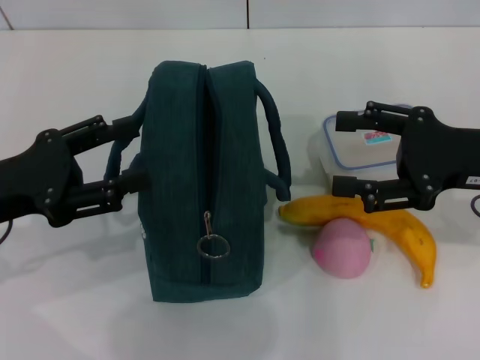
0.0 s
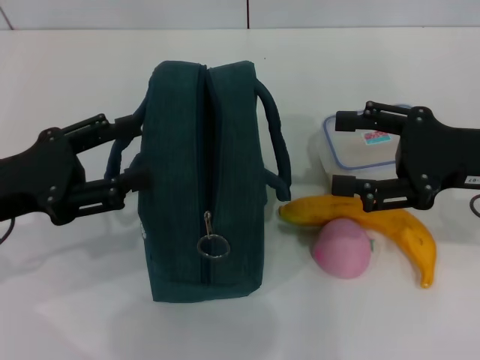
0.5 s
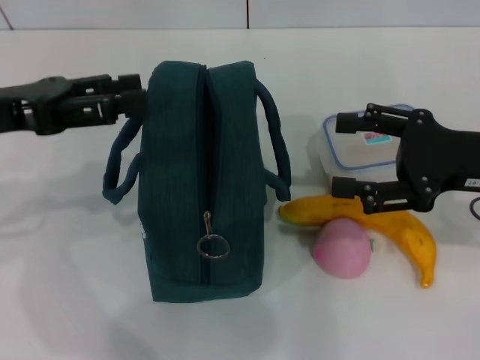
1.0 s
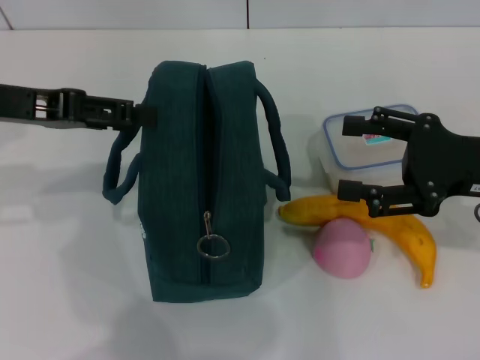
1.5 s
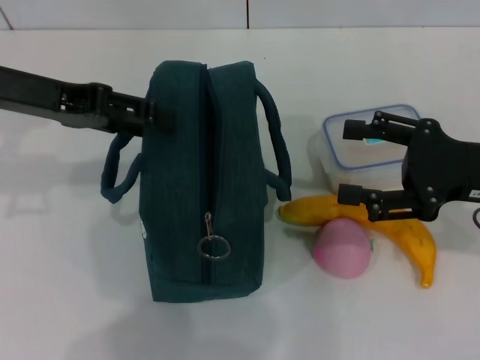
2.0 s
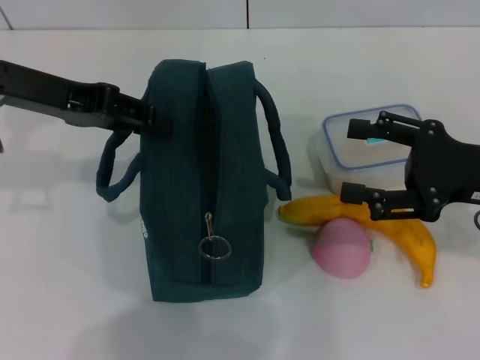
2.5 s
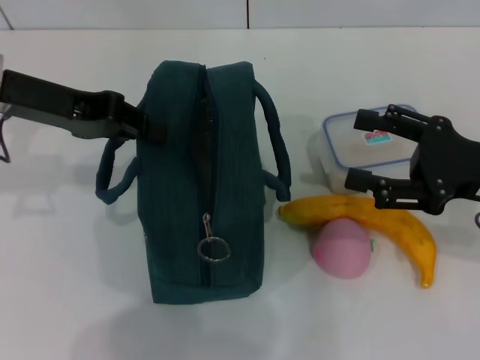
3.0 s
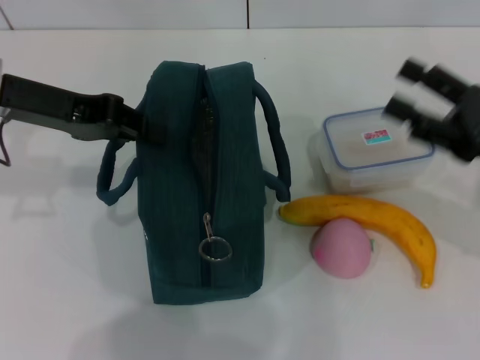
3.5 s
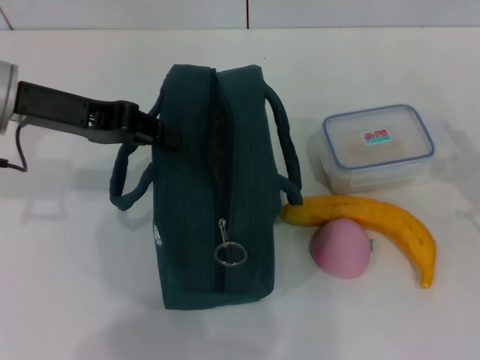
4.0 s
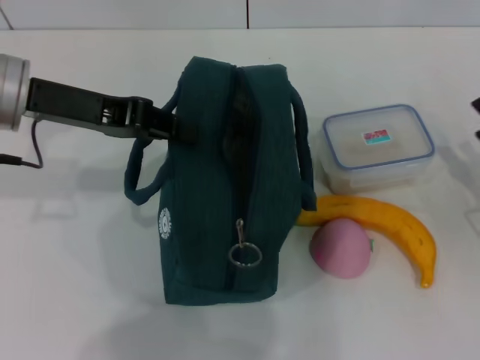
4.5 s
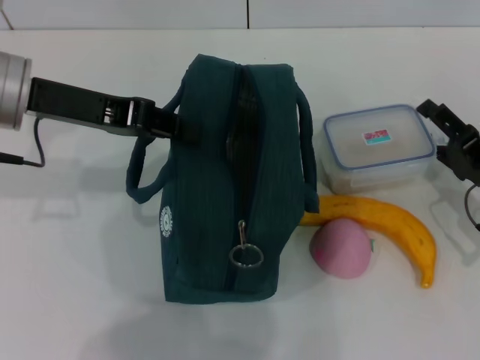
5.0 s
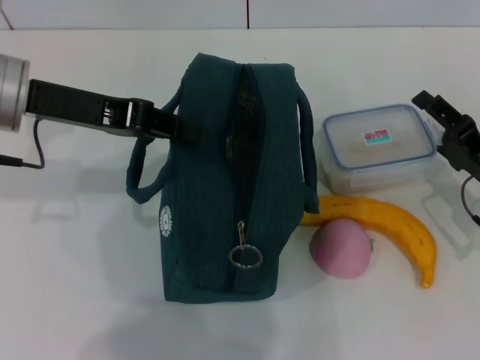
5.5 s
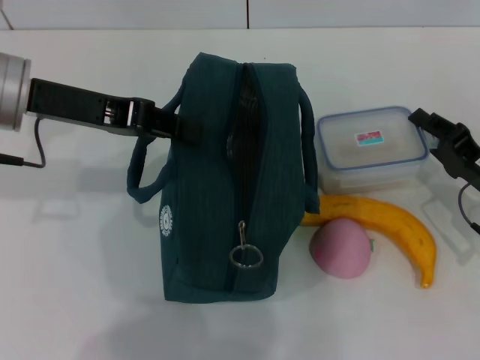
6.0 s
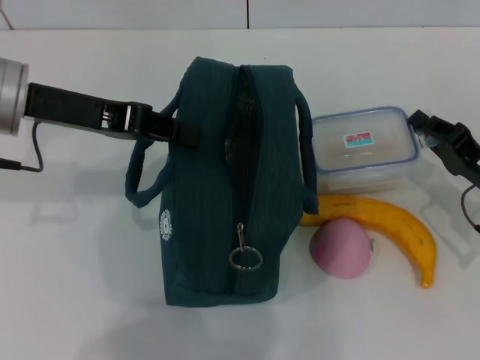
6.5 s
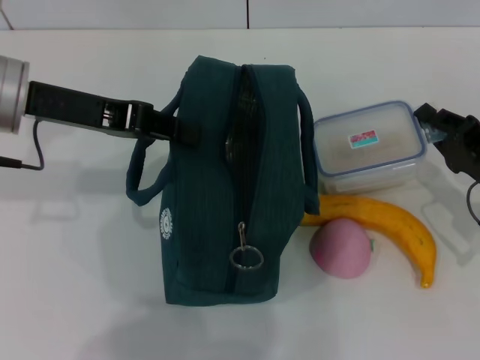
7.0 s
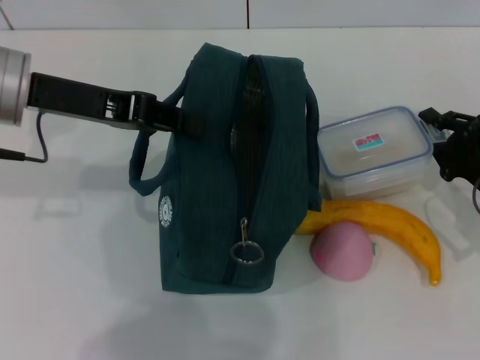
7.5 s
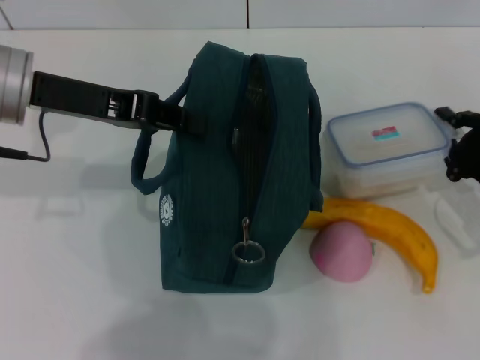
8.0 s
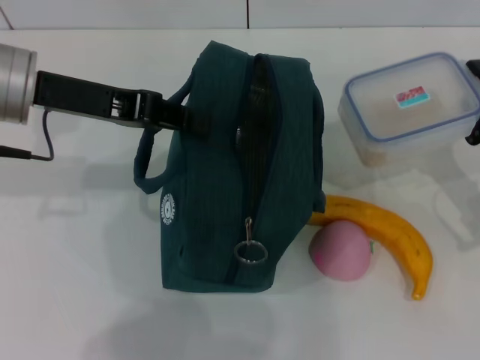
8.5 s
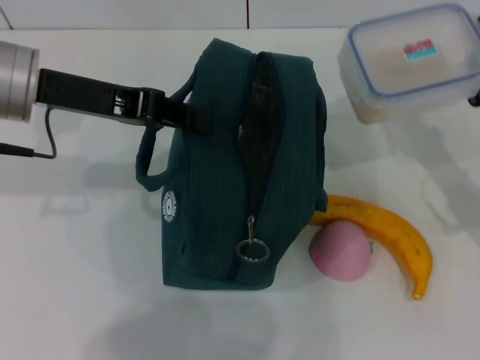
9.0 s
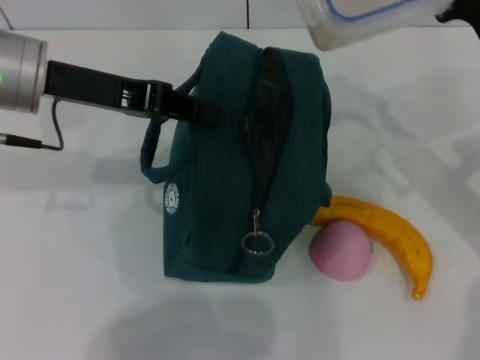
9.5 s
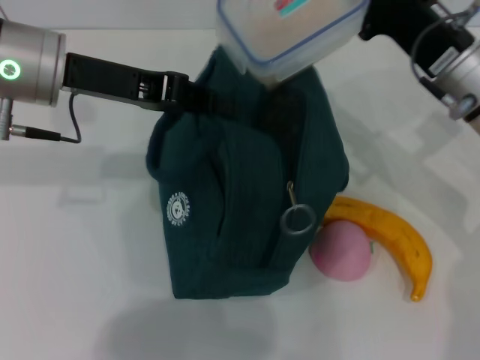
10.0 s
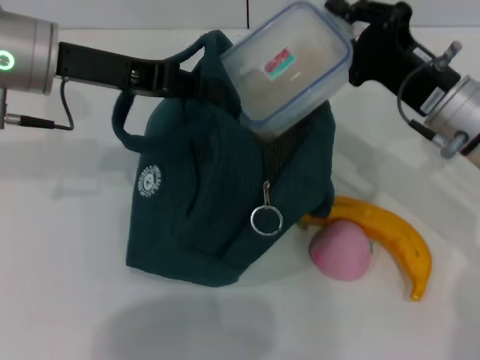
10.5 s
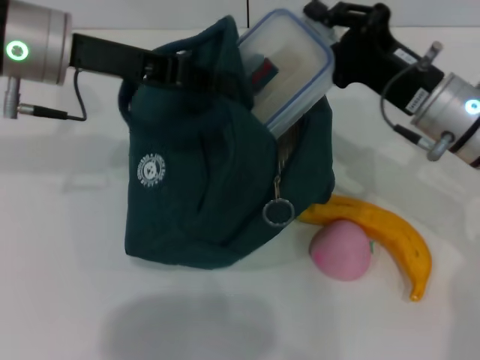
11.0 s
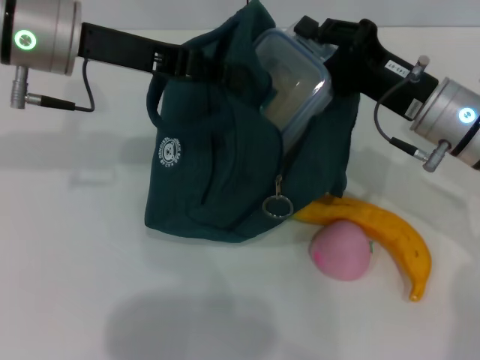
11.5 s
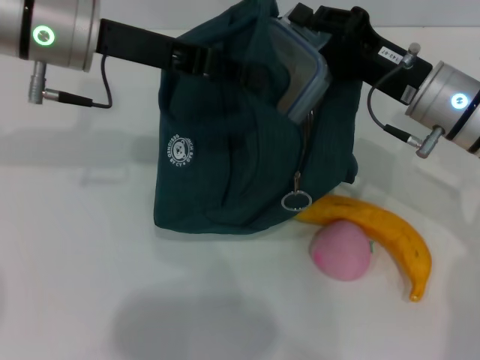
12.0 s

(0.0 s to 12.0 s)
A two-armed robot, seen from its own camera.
Step, 0.0 s - 2.5 s: Hold the lunch bag with your left hand.
Step, 3.0 s - 6.0 s: Pick up the lunch box with your right hand.
0.0 s - 2.0 s: The left gripper shifts approximately 15 cm forward and upward.
2.0 s - 4.0 s: The left gripper closes up. Meanwhile the right gripper goes roughly 10 cm downward and to the right.
4.0 s - 6.0 s: The right gripper changes place by approximately 5 cm, and closes its fingers.
6.0 s - 8.0 s: The right gripper closes up.
8.0 s - 10.0 s: The right gripper moves to the left, upward and forward, about 15 cm.

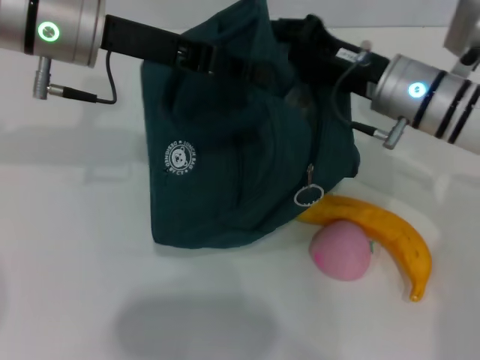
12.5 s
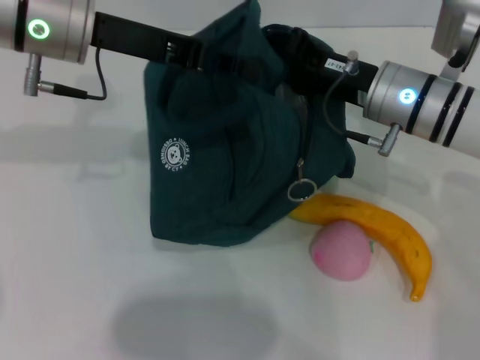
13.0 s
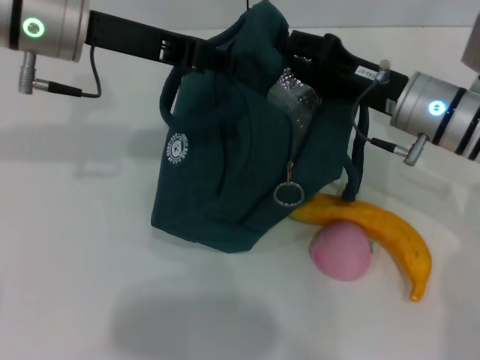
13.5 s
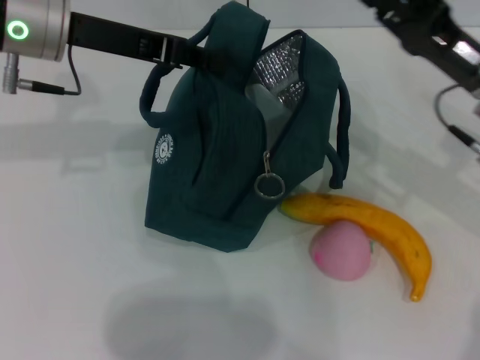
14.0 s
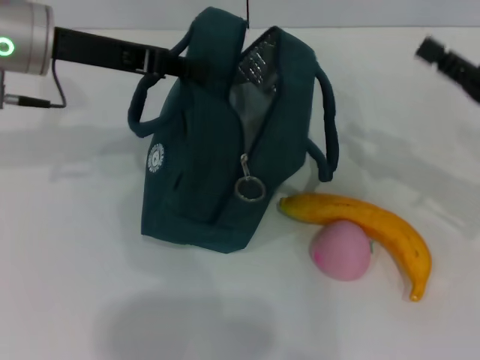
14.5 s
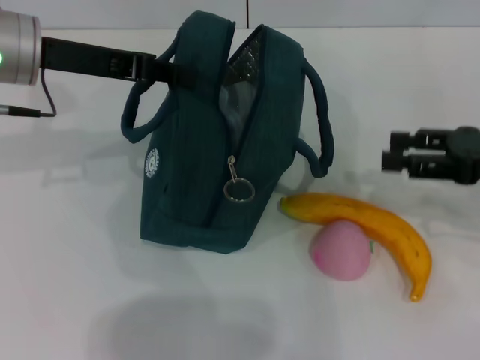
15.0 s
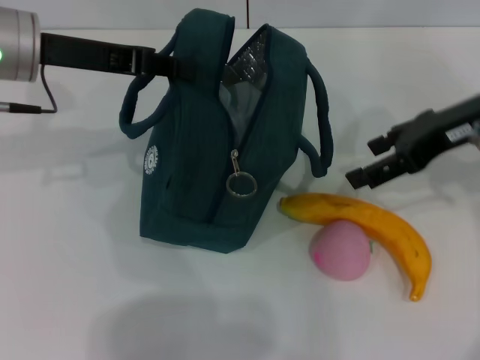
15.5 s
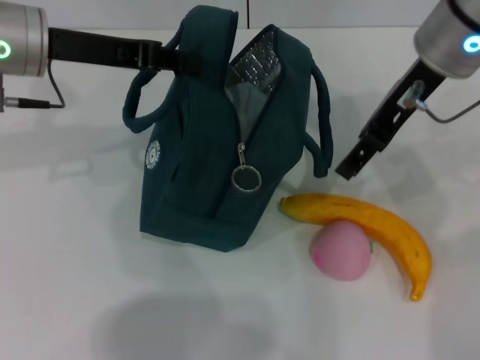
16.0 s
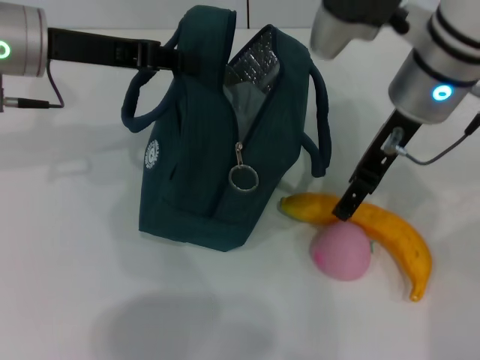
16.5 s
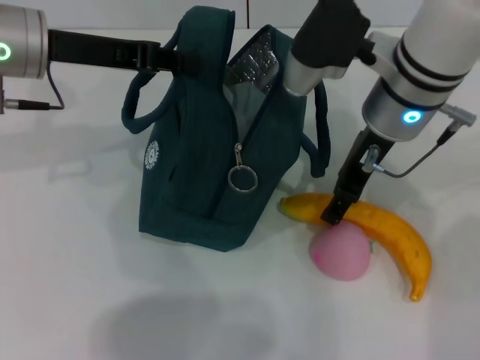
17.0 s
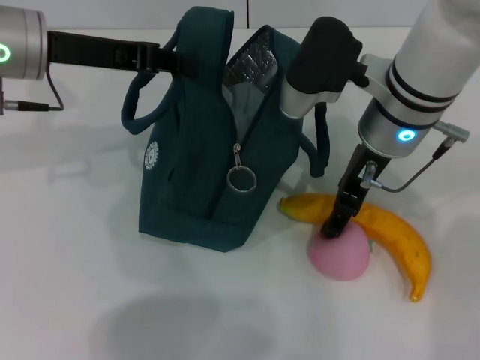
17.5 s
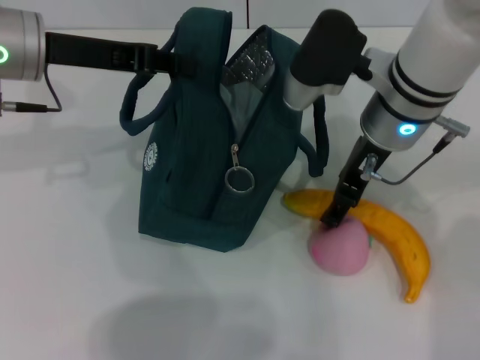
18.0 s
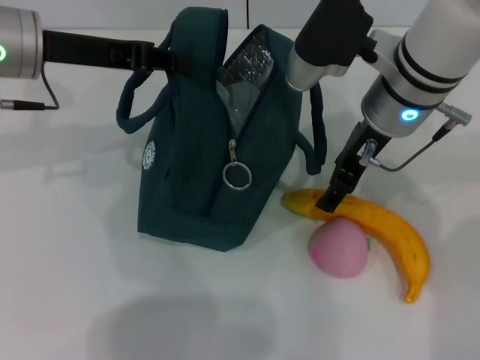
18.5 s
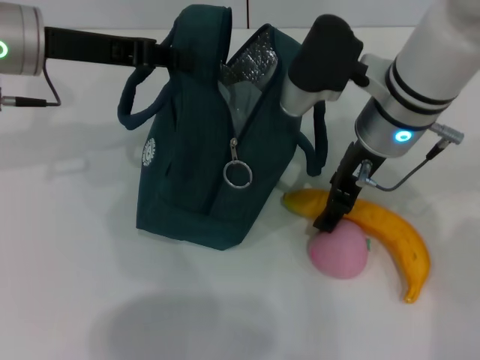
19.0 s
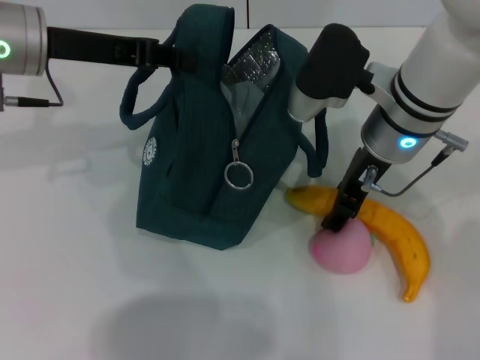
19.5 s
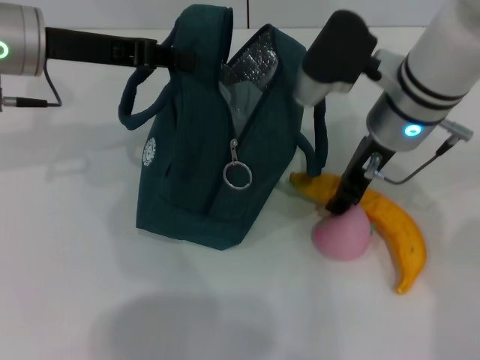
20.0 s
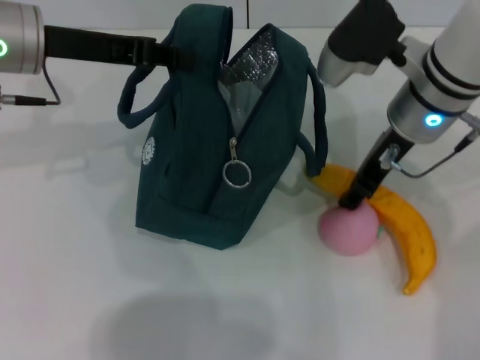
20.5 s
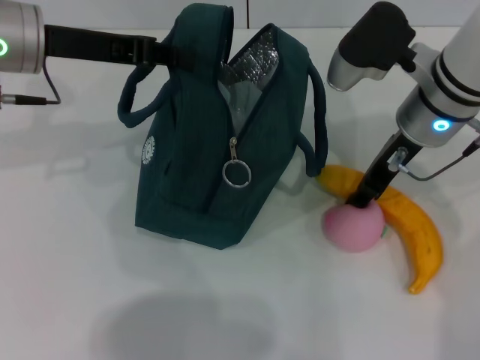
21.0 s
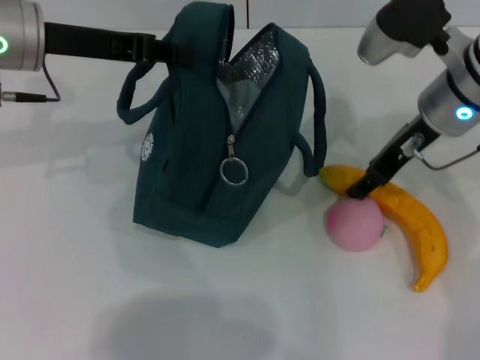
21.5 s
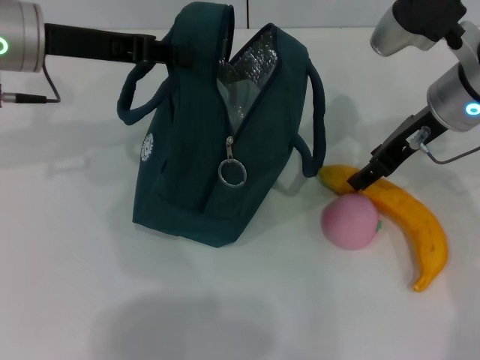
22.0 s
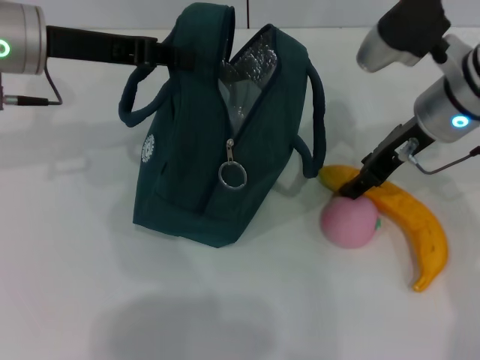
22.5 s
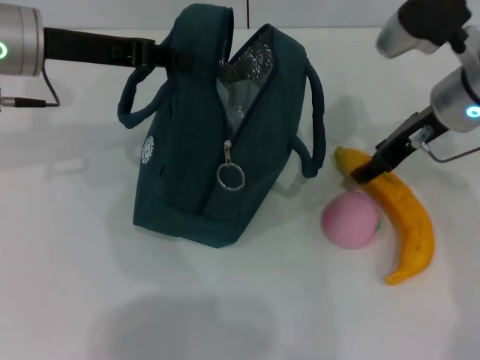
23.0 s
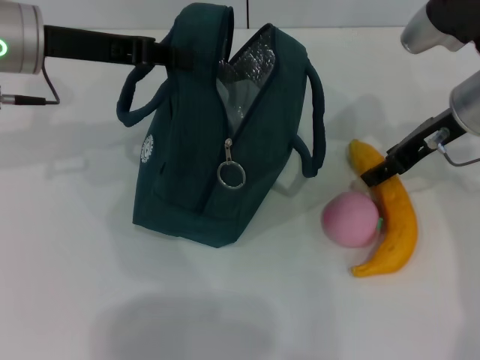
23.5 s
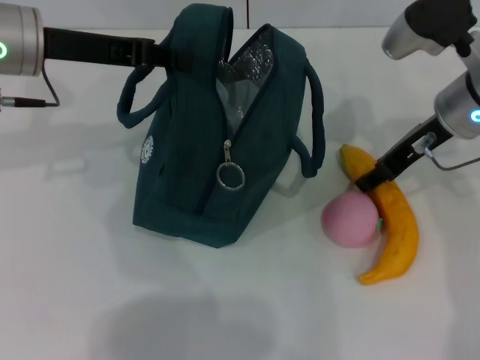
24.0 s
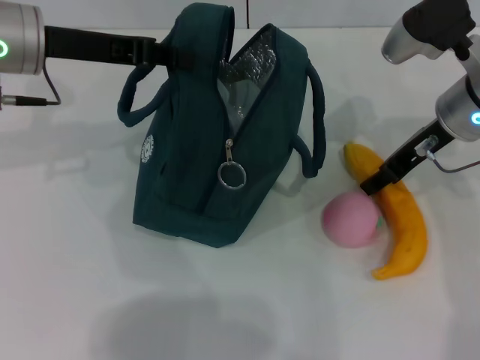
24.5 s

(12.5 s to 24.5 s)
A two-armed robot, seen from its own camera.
12.5 s - 14.5 s: The left gripper ends up roughly 5 cm from where it was. Meanwhile the right gripper heads to the right and backward, covering roughly 15 cm.
14.5 s - 16.5 s: The right gripper heads to the left, upward and forward, covering approximately 20 cm, and opens its fingers.
16.5 s - 18.5 s: The grippers make only small movements.
18.5 s - 20.5 s: The right gripper closes.
20.5 s - 22.5 s: The grippers make only small movements.
22.5 s - 24.5 s: The grippers make only small movements.

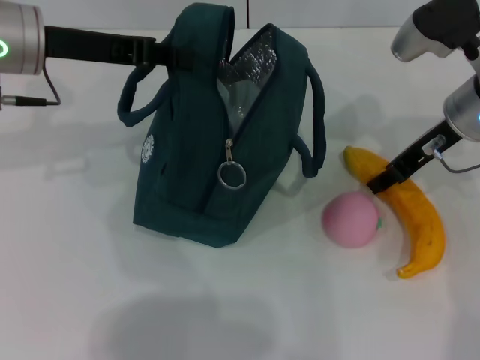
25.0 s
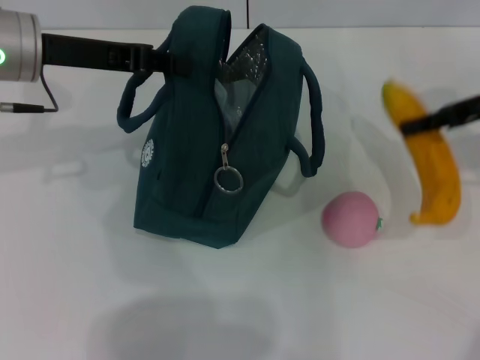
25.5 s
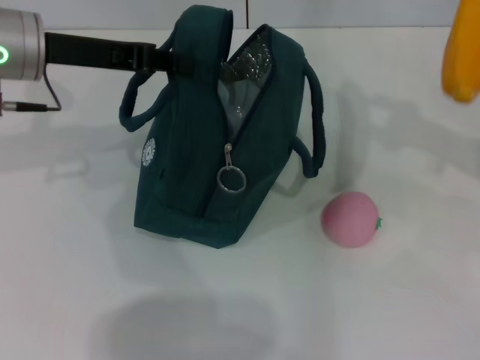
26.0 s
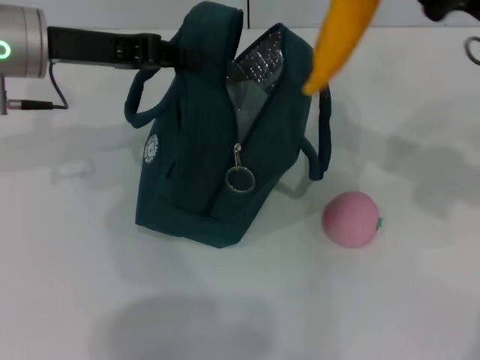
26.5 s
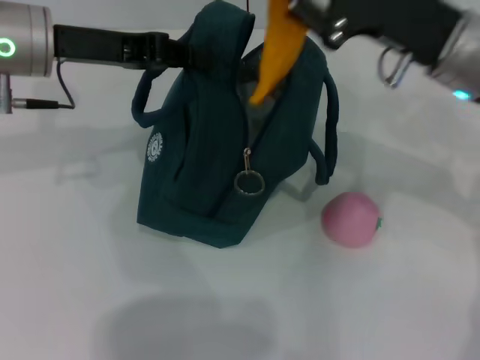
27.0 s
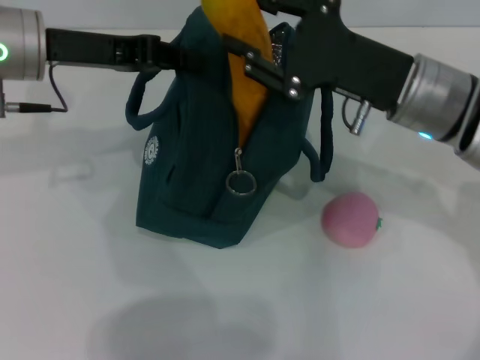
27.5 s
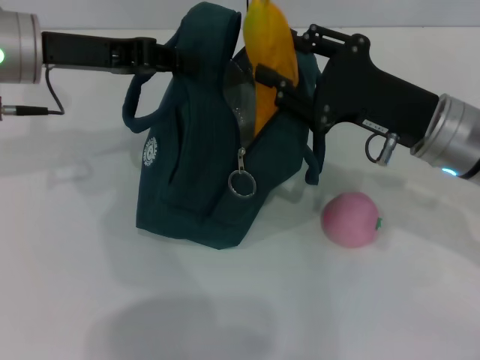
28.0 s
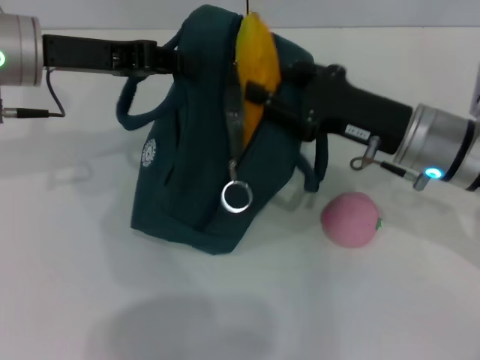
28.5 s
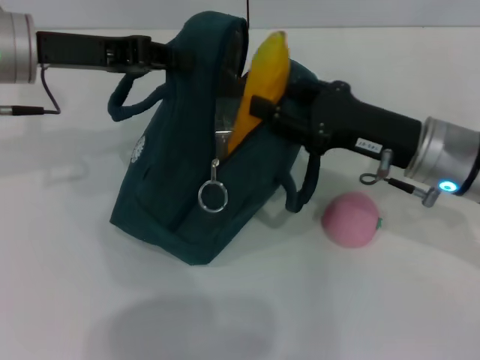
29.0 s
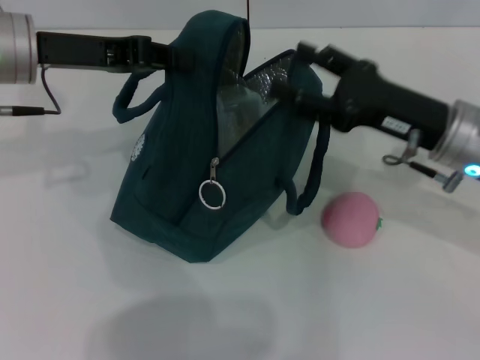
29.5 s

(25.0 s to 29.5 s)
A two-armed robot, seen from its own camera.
Step, 25.5 s - 29.0 s: Put the banana into the lunch bag with your right hand.
25.0 s - 27.0 s: The right gripper goes to the right and returns, roughly 15 cm each way.
27.0 s - 29.5 s: The right gripper travels downward by about 5 cm.
